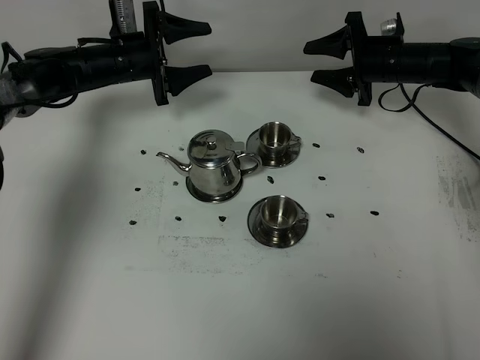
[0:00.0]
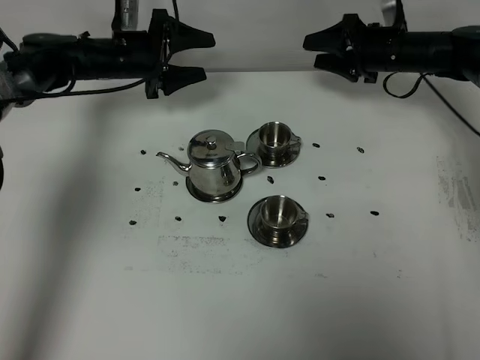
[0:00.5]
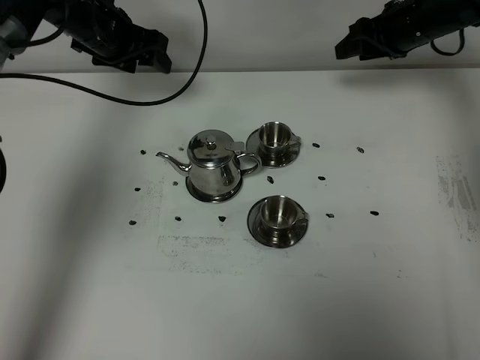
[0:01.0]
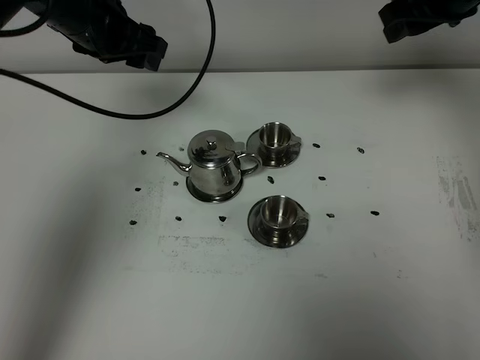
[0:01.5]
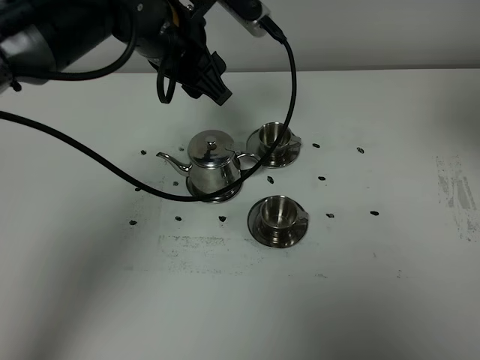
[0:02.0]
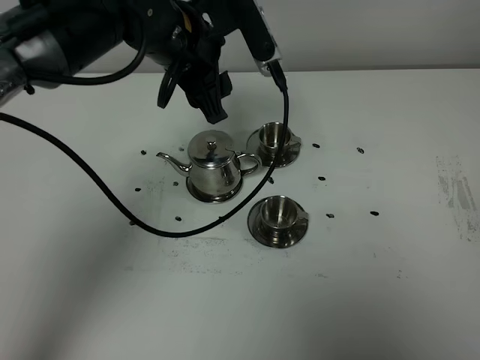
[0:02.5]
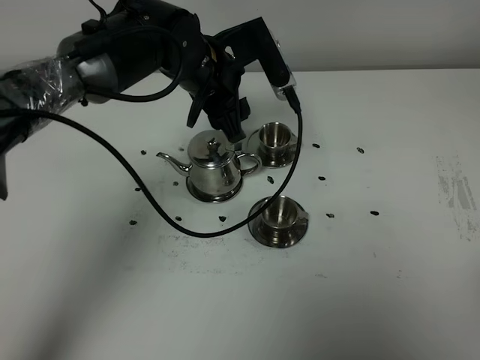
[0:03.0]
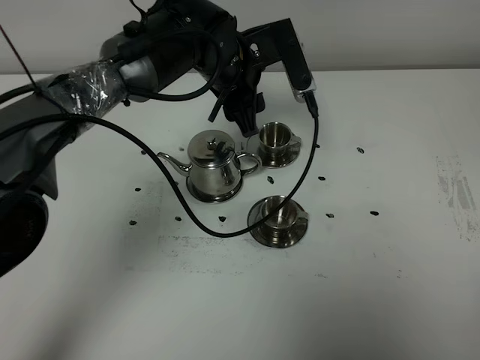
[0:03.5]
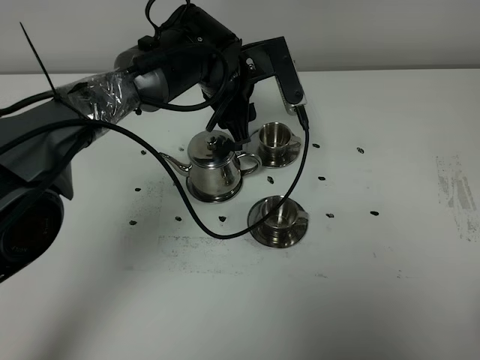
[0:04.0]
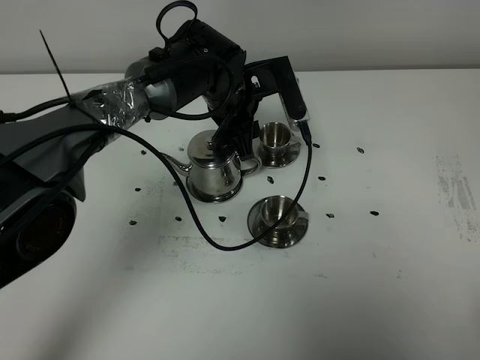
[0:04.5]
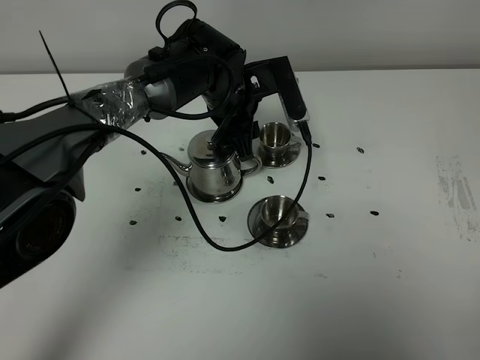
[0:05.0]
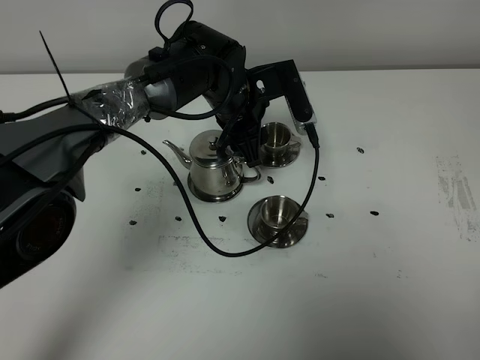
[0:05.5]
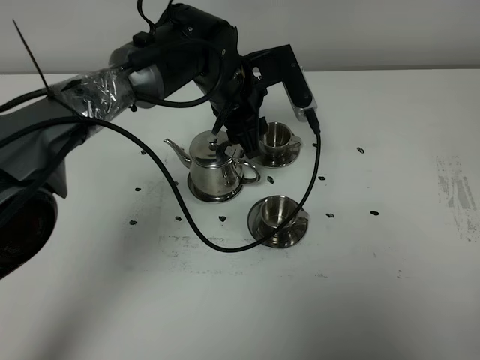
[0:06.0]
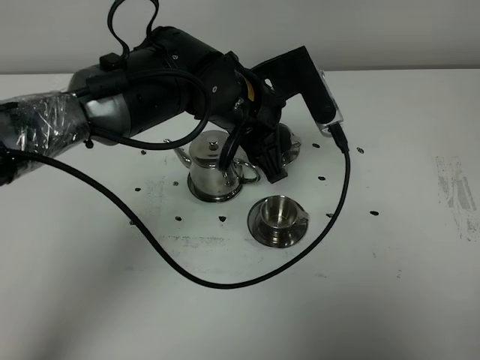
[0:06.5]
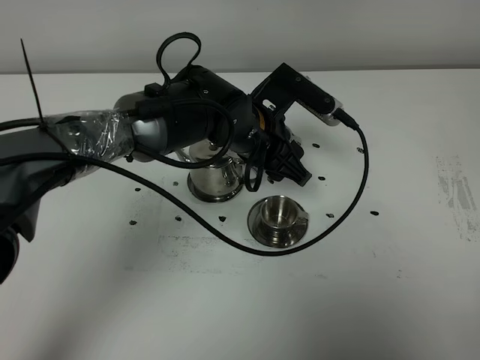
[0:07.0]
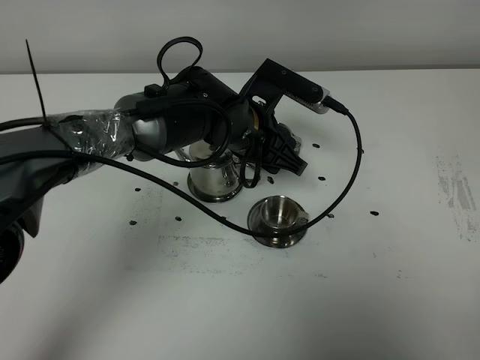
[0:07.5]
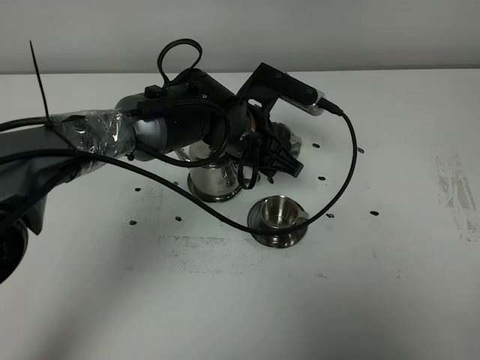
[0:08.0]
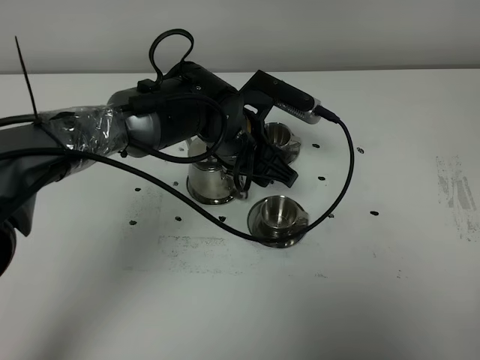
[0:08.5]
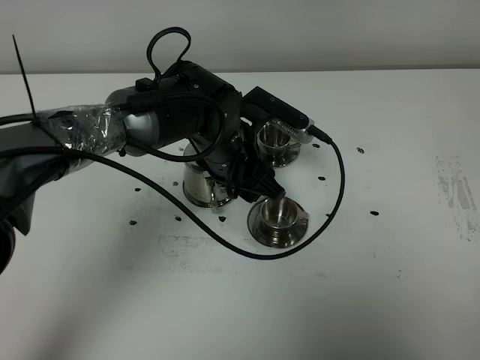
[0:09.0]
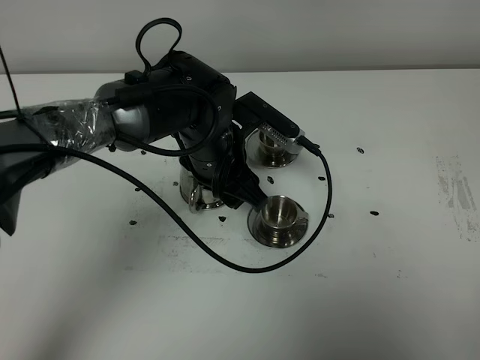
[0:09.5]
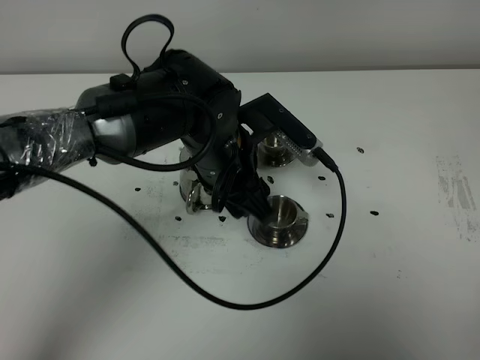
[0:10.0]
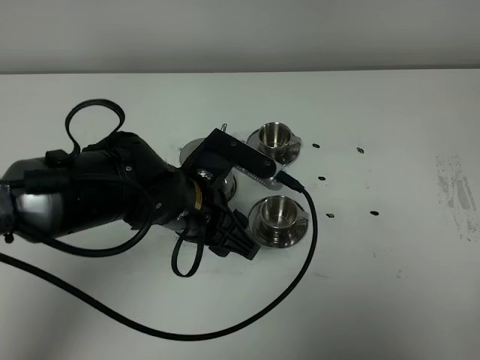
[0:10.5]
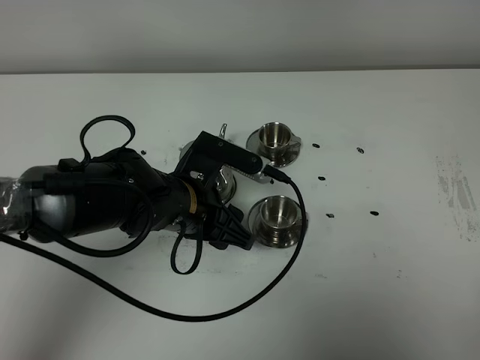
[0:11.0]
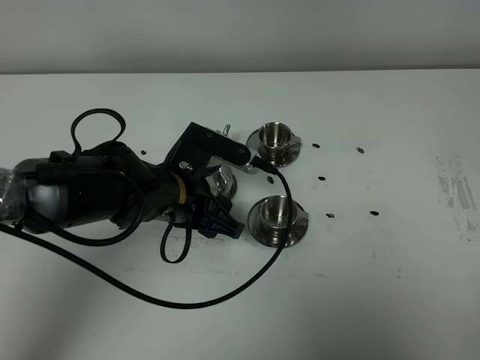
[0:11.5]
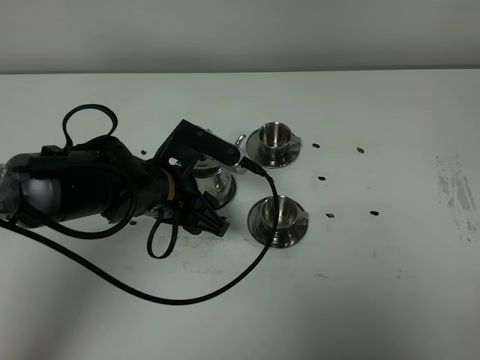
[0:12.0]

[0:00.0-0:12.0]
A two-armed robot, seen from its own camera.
Task of the whole recording: grasp the stainless steel teapot and pour the tea into the two stainless steel teacups one by one, put the stainless steel teapot back in its original place.
0:00.0 to 0:02.0: The right gripper is displaced upward and backward by about 40 cm, while the left gripper moves upward, backward and to the right, roughly 25 cm.
0:02.0 to 0:04.0: The left gripper heads downward and to the right, covering roughly 10 cm, while the right gripper is displaced backward and downward by approximately 30 cm.
0:04.0 to 0:06.0: There are only small adjustments of the grippers.
0:06.0 to 0:08.0: The left gripper moves some 5 cm.
0:08.0 to 0:10.0: The left gripper moves backward, some 5 cm.
0:10.0 to 0:12.0: The left gripper heads to the left and downward, covering approximately 10 cm.

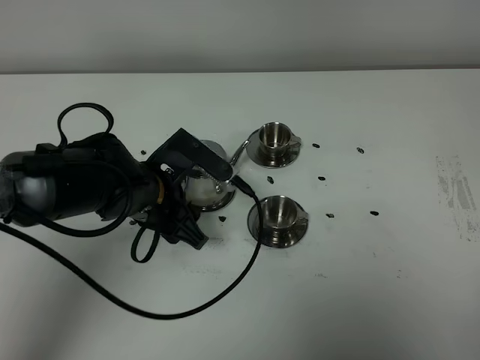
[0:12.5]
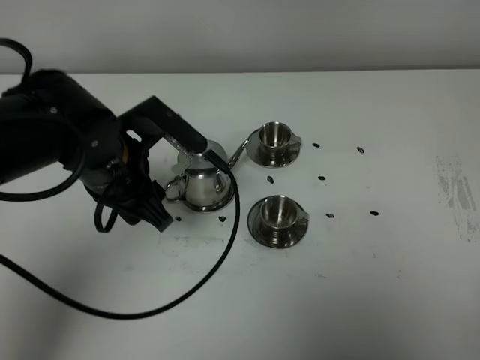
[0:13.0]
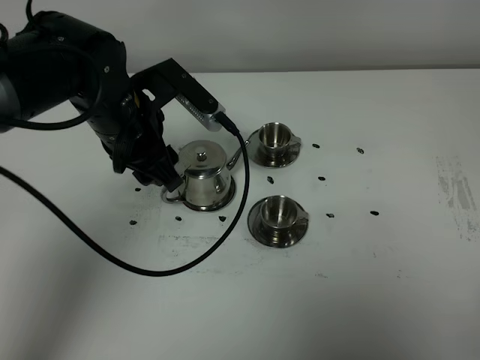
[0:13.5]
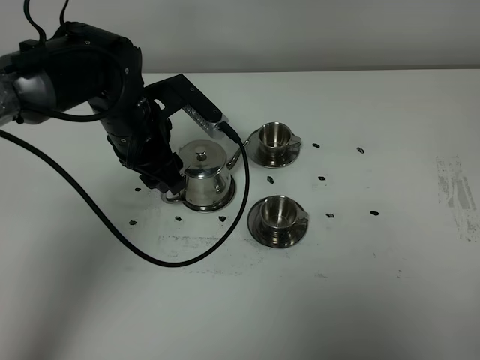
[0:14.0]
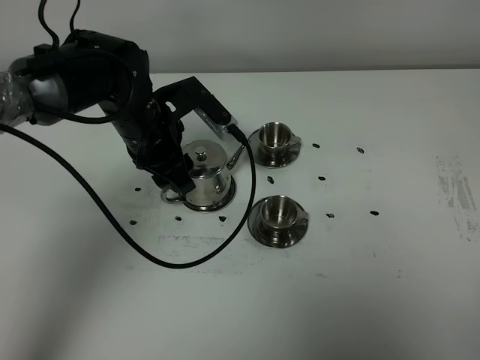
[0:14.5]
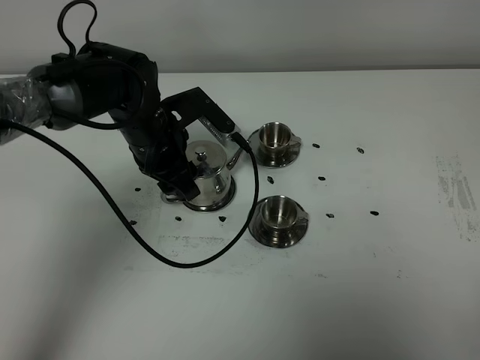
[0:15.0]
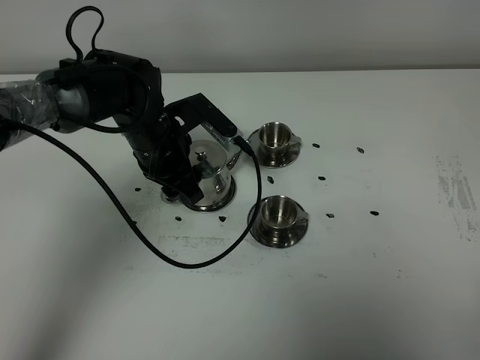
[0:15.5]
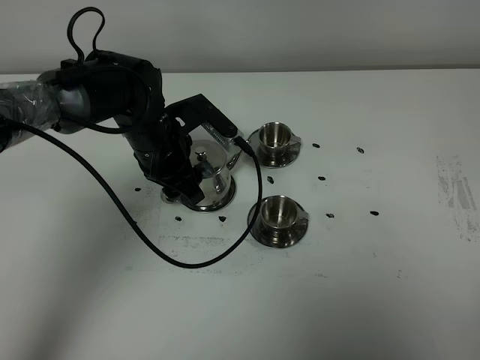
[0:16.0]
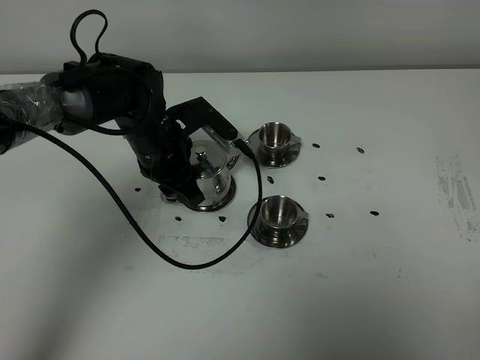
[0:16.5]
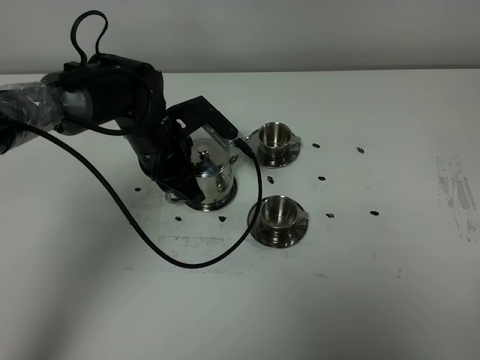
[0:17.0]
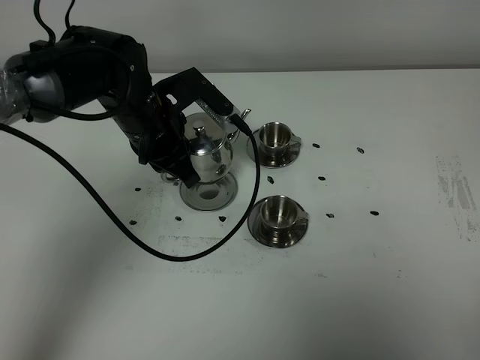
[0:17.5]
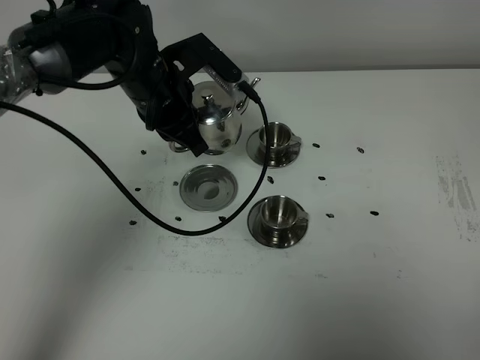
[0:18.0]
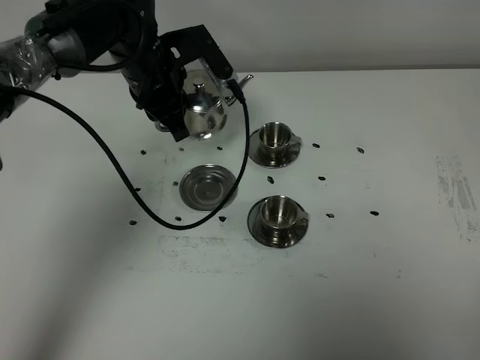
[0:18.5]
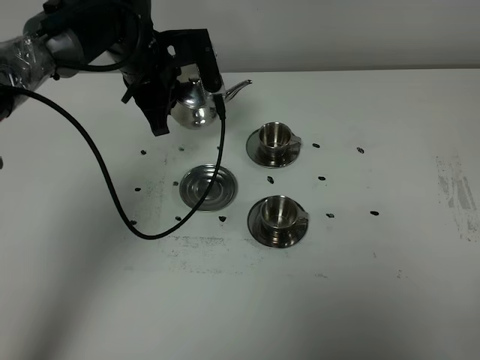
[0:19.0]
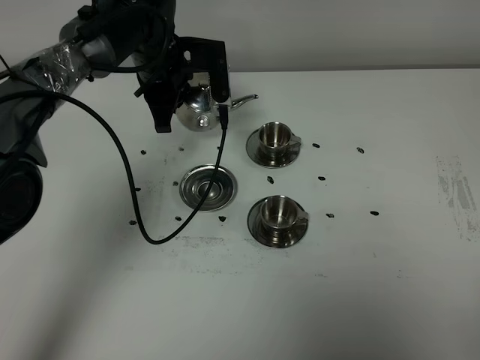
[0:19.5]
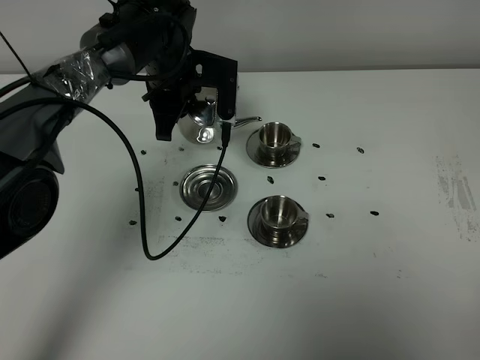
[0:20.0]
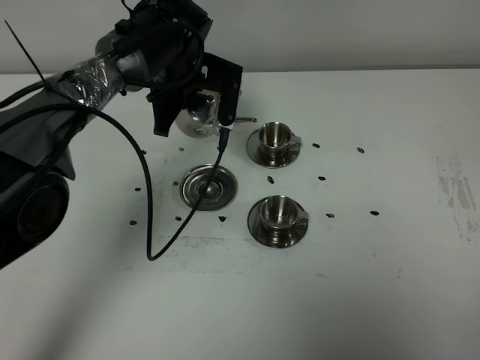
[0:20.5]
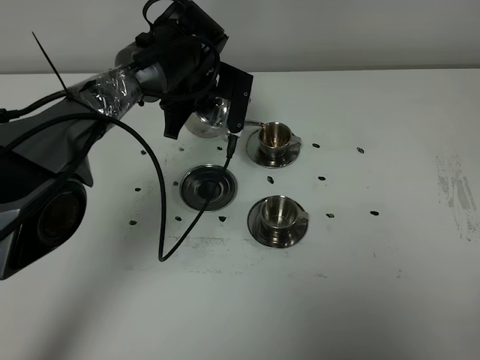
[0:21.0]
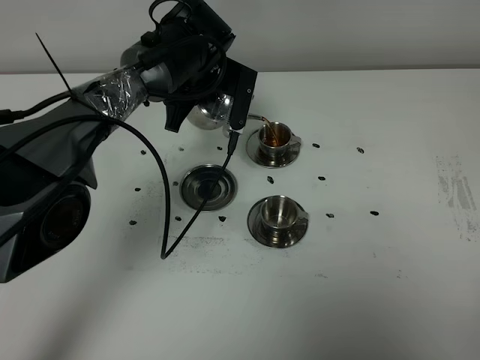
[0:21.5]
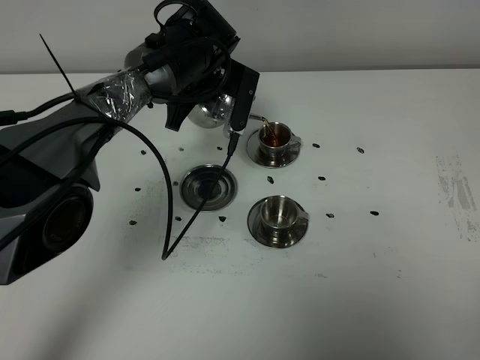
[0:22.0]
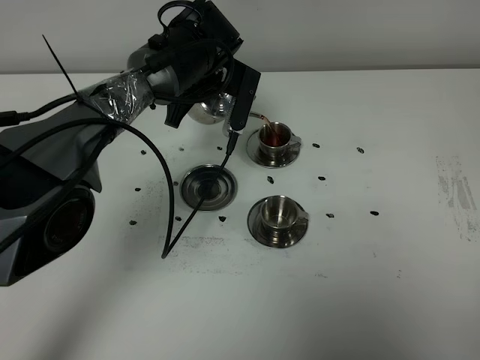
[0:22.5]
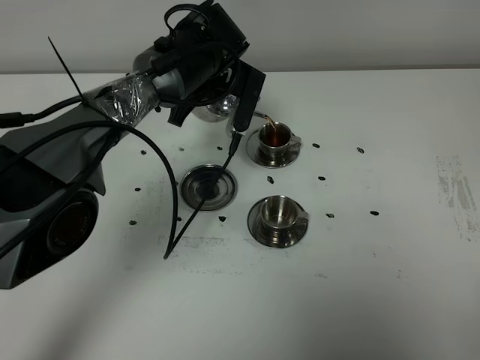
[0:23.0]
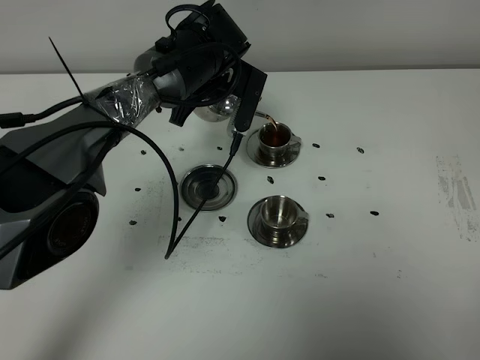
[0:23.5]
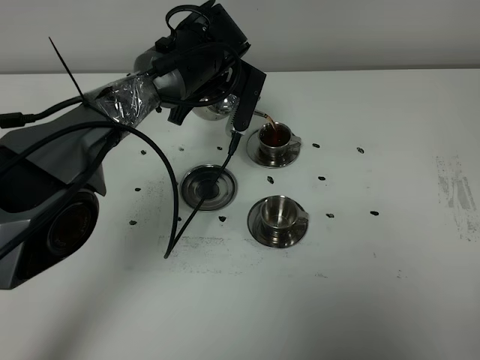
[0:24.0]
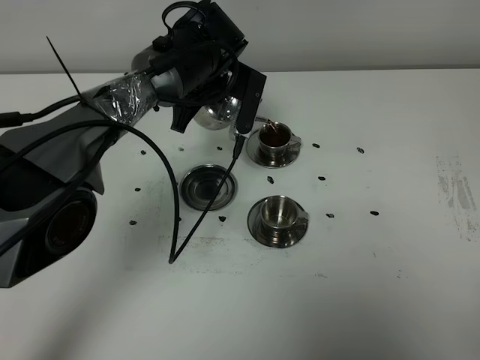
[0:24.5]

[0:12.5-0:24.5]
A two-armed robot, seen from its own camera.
Task of the whole recording: grasp the stainless steel teapot and pour the tea into the two stainless steel teacups one by one, put the stainless steel teapot back in its original place.
Step, 0:12.5 to 0:17.0: Pick up the teapot with the left gripper.
0:12.5 to 0:14.5: The left gripper shifts approximately 10 cm forward.
0:14.5 to 0:16.5: The left gripper closes up.
0:16.5 to 0:18.5: The left gripper goes approximately 10 cm upward and forward.
0:18.5 to 0:20.5: The left gripper changes place by about 5 cm.
0:20.5 to 0:22.5: The grippers stay close to where they were, moving slightly.
0:22.5 to 0:24.5: Neither gripper changes place.

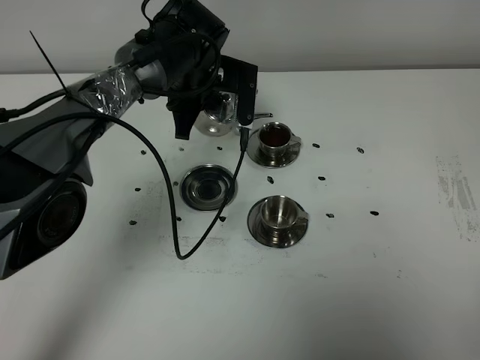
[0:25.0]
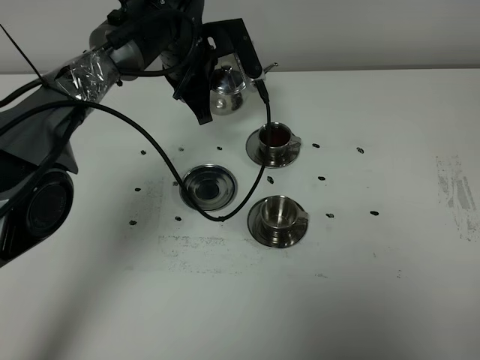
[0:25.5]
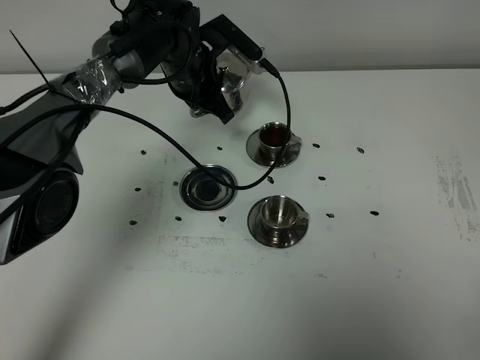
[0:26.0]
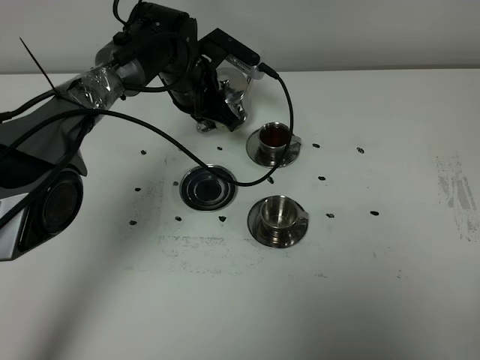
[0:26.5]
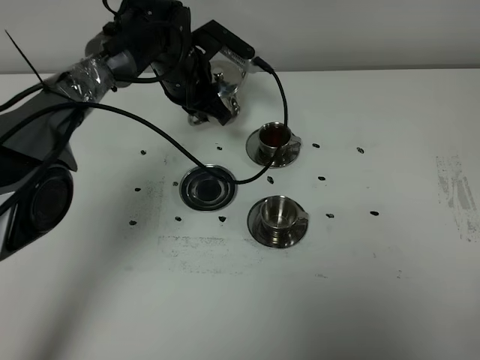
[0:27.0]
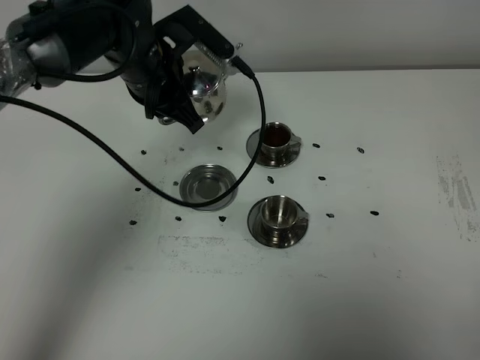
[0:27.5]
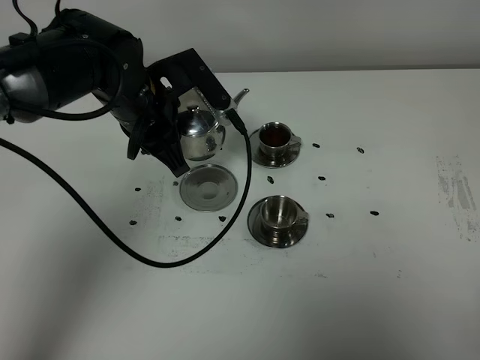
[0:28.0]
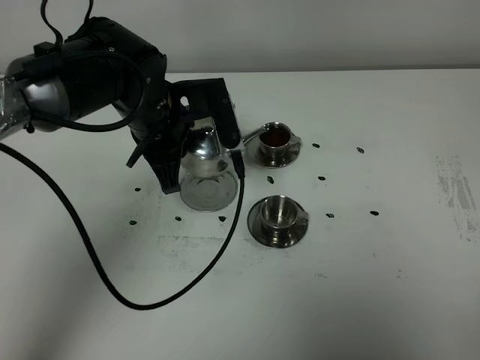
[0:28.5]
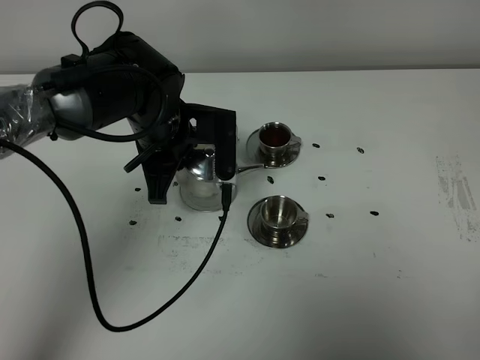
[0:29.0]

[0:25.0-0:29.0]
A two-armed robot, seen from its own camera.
Task of the whole recording: grasp the stainless steel teapot and pour the tea into the two stainless steel teacups one by one, put the stainless steel teapot back in its original place.
0:27.0 to 0:29.0: The left gripper heads backward, covering roughly 15 cm.
